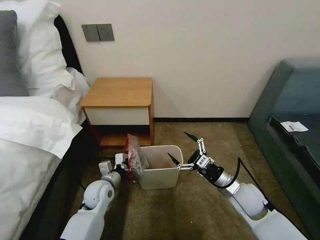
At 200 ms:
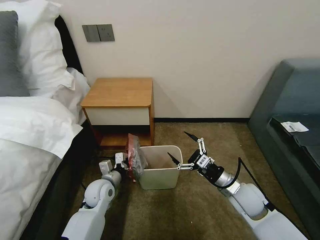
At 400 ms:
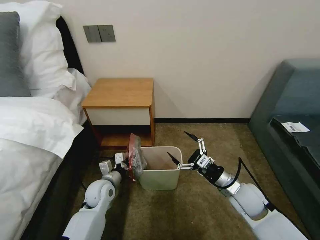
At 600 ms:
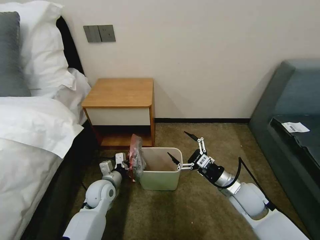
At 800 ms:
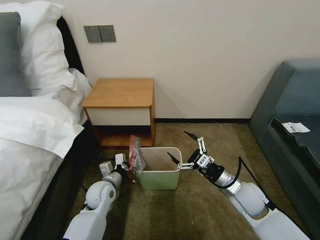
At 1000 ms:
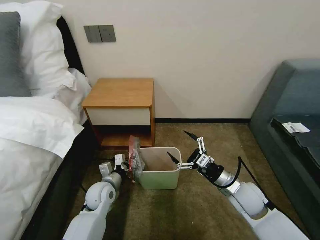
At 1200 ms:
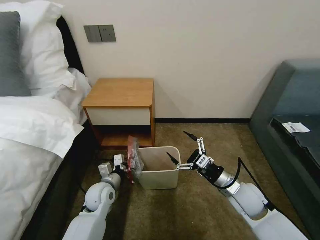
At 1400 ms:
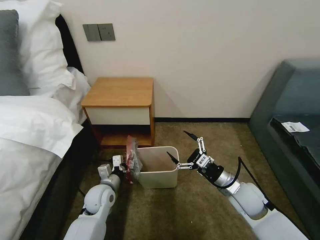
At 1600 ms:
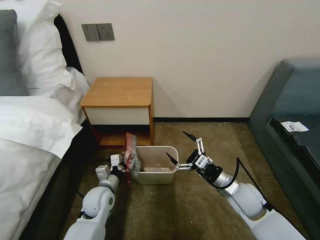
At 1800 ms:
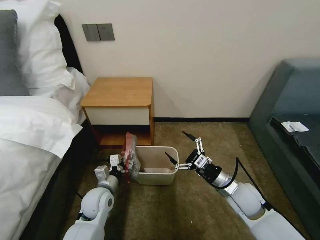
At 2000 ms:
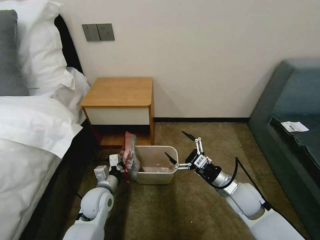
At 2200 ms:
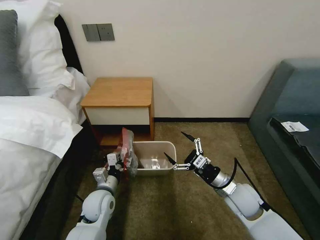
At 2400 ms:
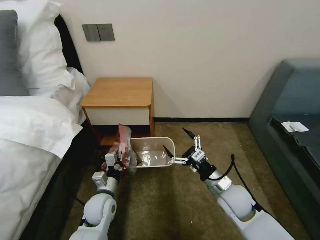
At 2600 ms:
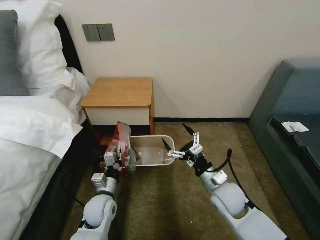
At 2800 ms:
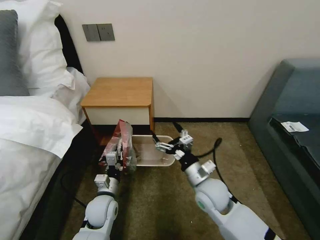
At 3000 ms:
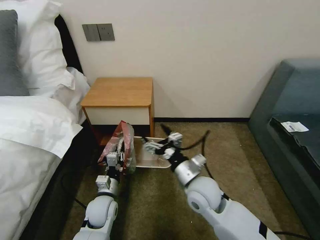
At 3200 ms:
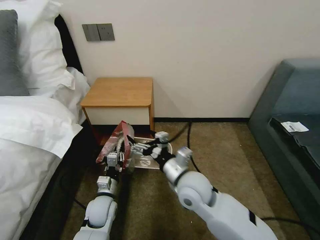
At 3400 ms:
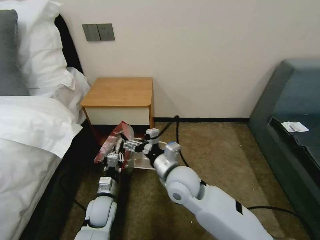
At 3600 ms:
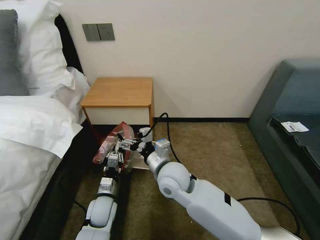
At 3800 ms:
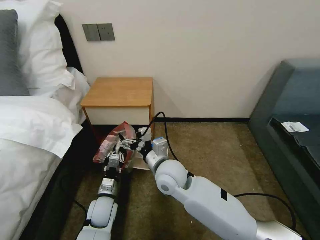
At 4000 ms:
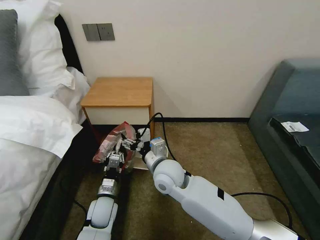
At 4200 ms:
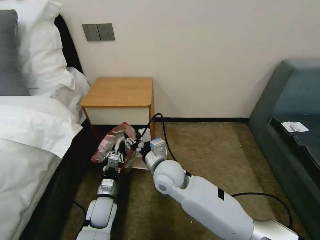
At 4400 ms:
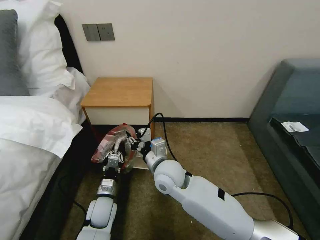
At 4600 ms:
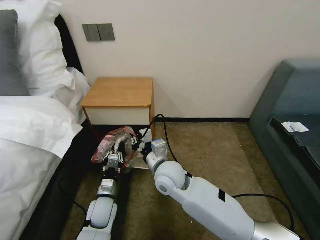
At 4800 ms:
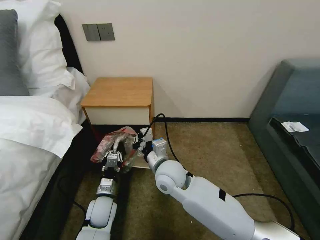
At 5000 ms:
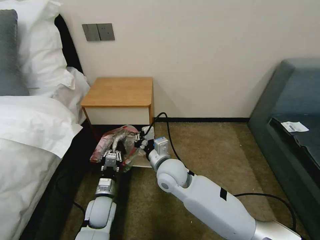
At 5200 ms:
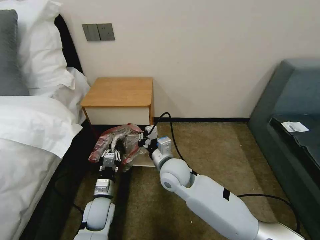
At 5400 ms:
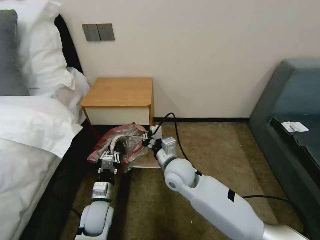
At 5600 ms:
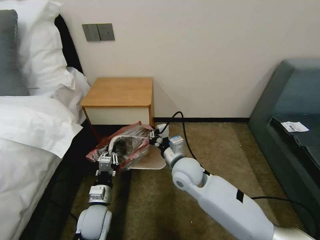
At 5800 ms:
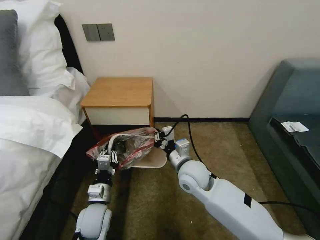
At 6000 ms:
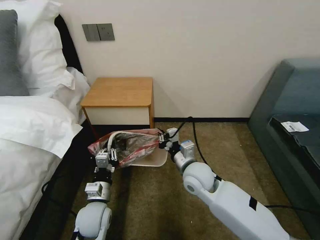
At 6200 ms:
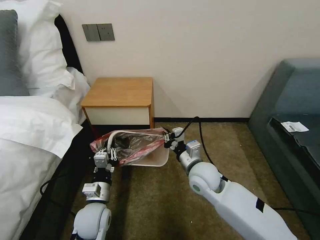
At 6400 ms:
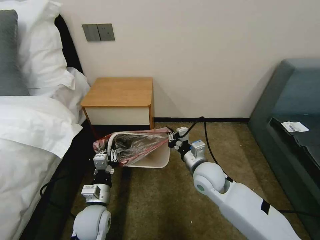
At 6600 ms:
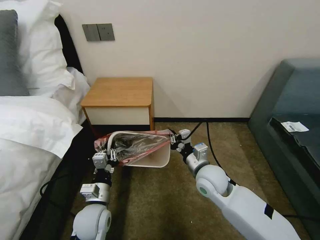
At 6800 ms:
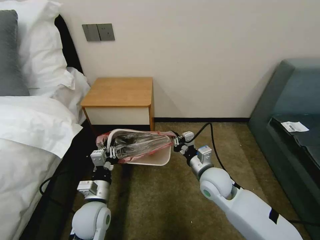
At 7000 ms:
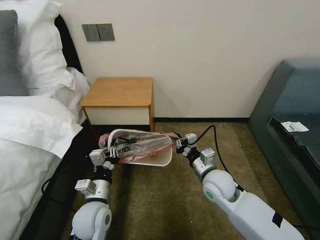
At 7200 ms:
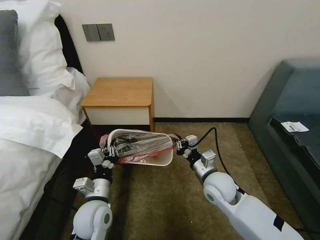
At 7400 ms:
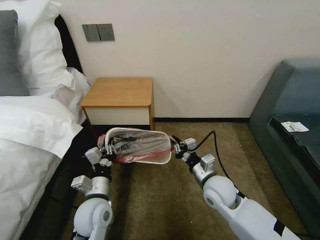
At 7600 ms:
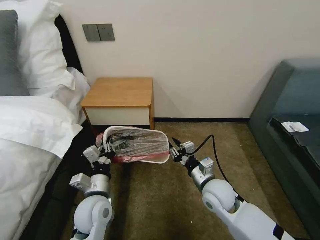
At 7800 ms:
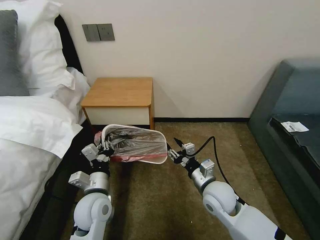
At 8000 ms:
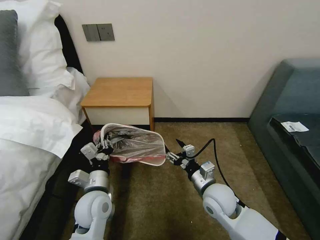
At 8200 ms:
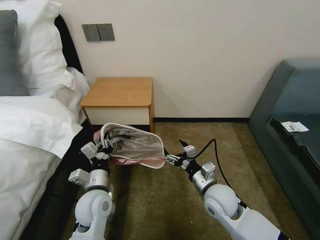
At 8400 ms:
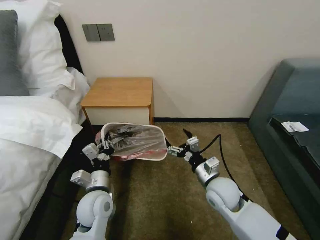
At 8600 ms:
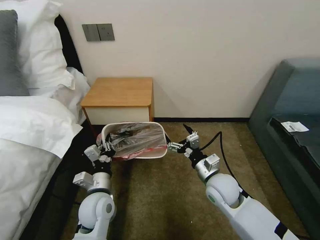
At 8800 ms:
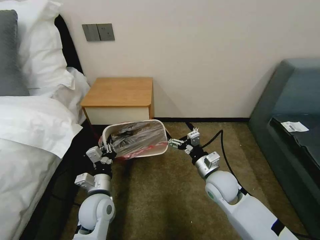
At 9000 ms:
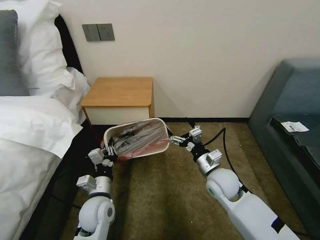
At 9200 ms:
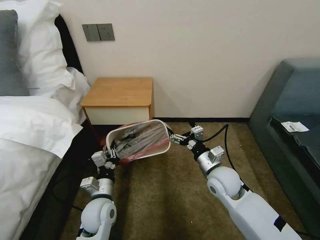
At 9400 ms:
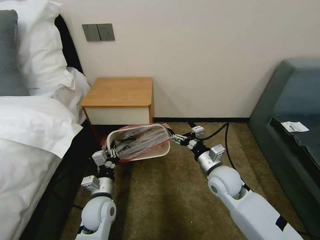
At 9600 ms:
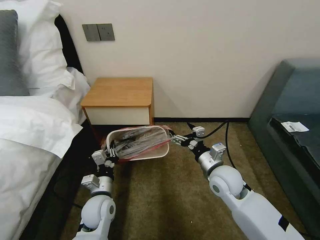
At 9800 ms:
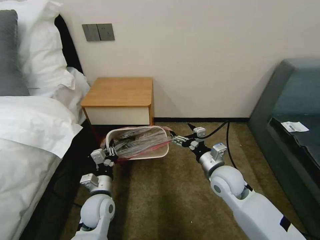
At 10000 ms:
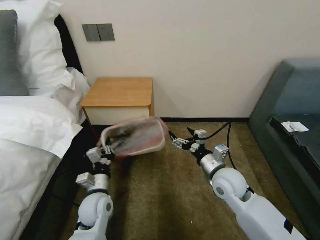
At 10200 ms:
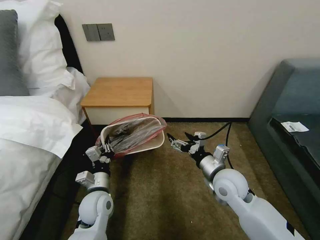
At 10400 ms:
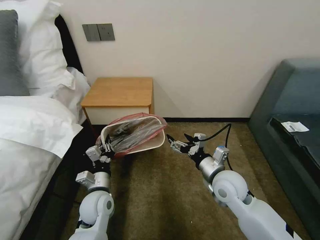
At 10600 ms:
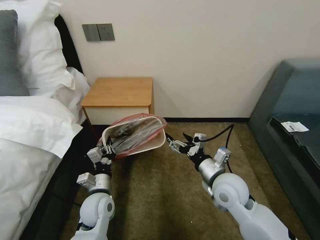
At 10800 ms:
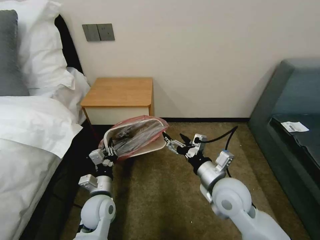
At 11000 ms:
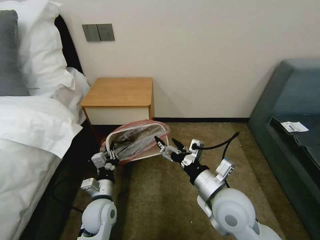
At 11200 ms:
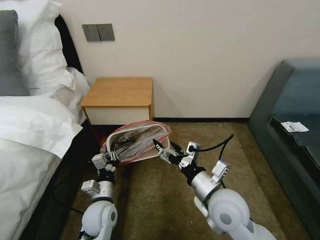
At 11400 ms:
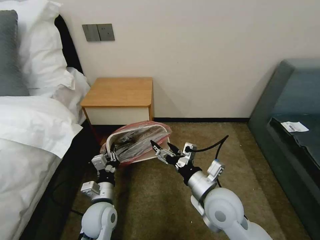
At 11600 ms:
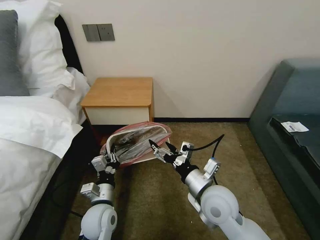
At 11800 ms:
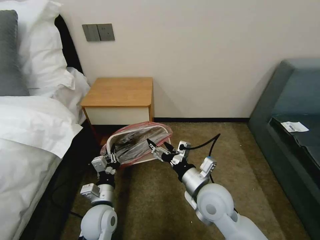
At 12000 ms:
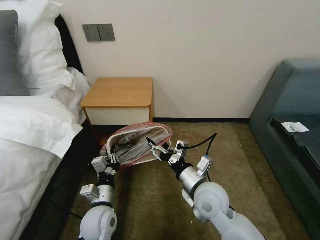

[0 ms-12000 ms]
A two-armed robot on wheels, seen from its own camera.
Task of the whole recording: Pick up the garbage bag from the table and place it over the trash can.
0 ms to 1600 ms: The left gripper closes.
1600 ms to 3000 ms: The right gripper goes roughly 15 cm to the left.
3000 ms to 4400 ms: The right gripper goes some 10 cm to the left, and closes up.
4400 ms to 6000 ms: The left gripper is displaced upward by about 5 cm. The right gripper goes roughly 10 cm to the right, and closes its fingers.
6000 ms to 7600 ms: The right gripper heads to the right, covering about 5 cm. The left gripper is displaced upward by roughly 5 cm.
7600 ms to 9000 ms: The right gripper opens up.
10400 ms to 12000 ms: The right gripper shifts some 5 cm to the left.

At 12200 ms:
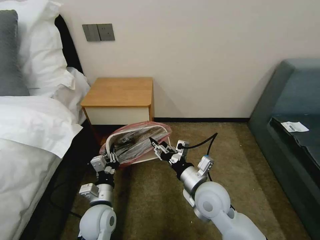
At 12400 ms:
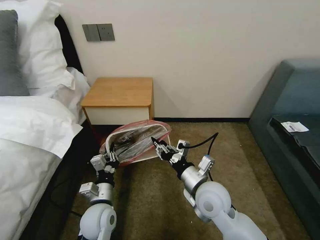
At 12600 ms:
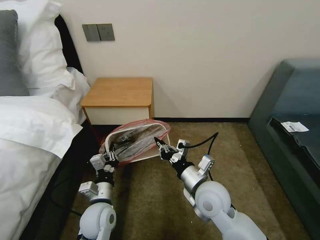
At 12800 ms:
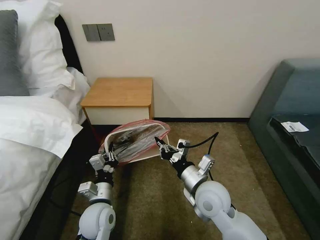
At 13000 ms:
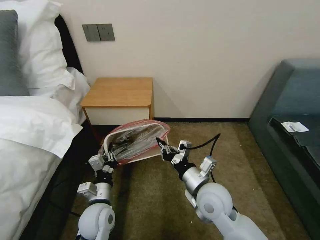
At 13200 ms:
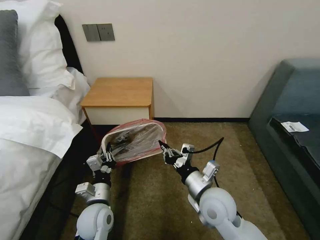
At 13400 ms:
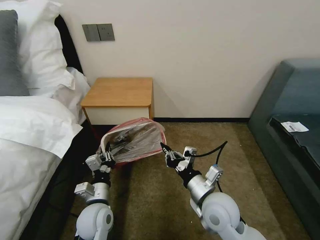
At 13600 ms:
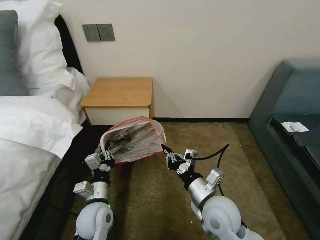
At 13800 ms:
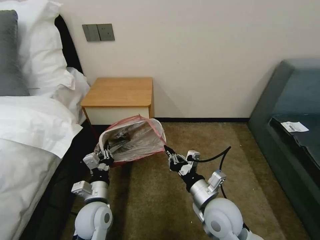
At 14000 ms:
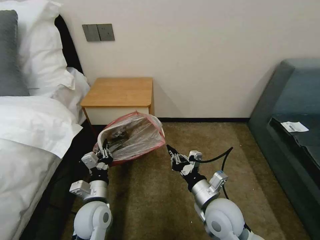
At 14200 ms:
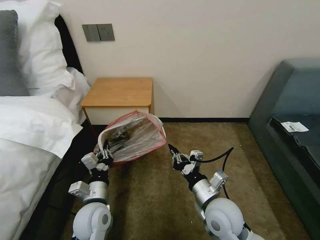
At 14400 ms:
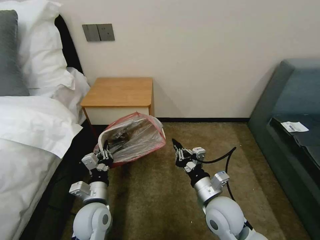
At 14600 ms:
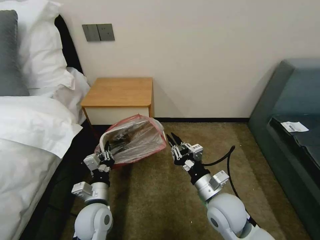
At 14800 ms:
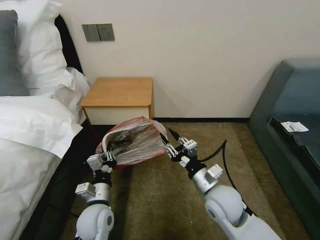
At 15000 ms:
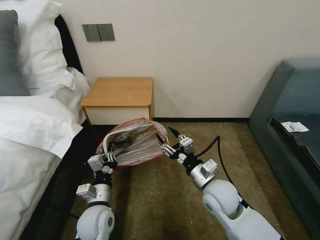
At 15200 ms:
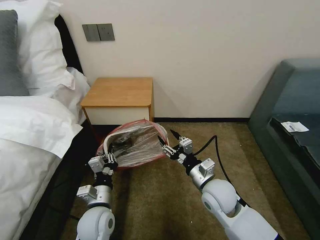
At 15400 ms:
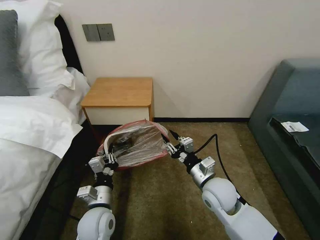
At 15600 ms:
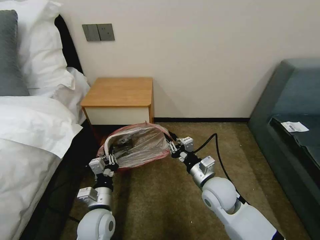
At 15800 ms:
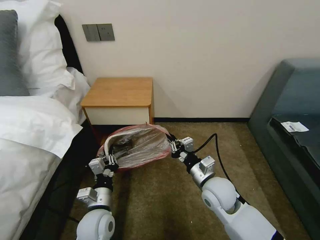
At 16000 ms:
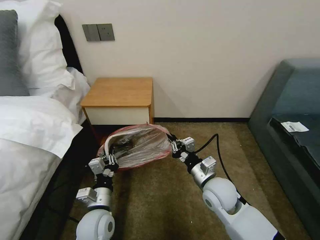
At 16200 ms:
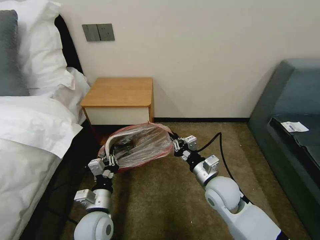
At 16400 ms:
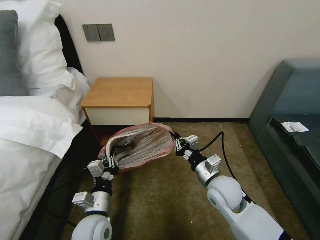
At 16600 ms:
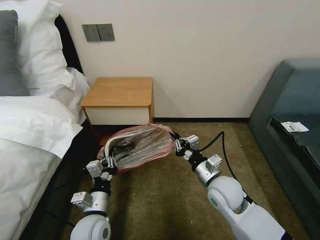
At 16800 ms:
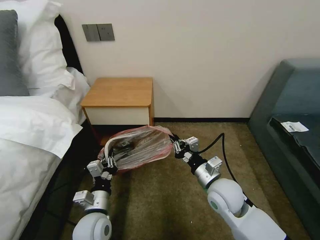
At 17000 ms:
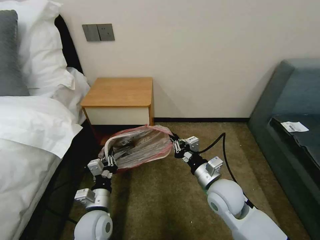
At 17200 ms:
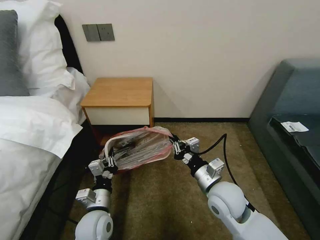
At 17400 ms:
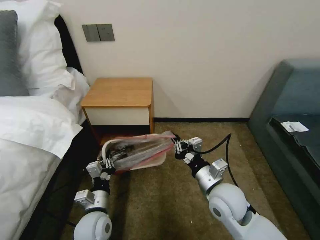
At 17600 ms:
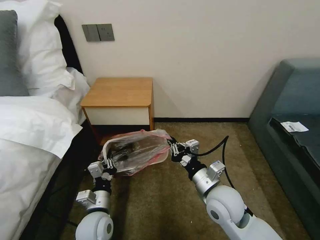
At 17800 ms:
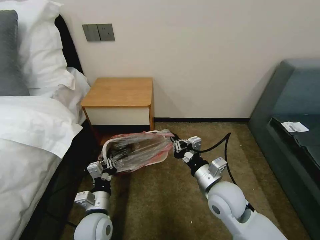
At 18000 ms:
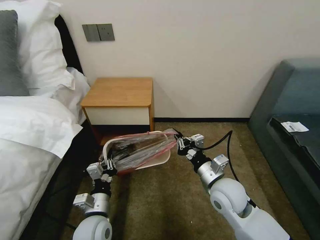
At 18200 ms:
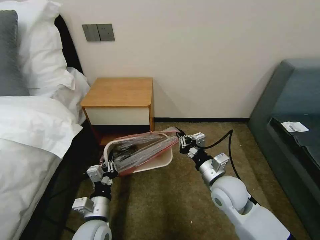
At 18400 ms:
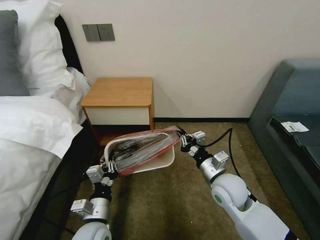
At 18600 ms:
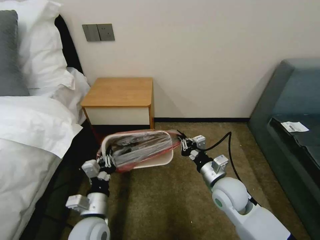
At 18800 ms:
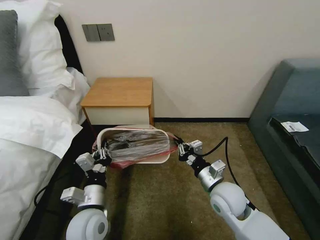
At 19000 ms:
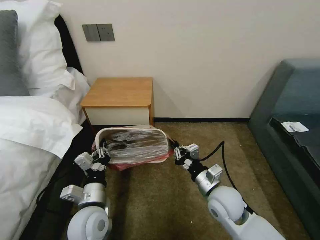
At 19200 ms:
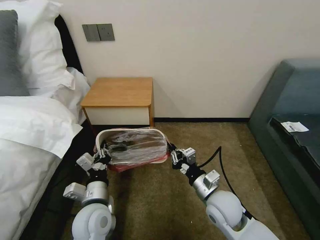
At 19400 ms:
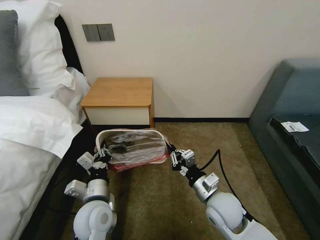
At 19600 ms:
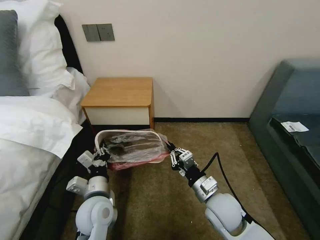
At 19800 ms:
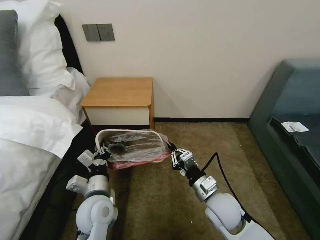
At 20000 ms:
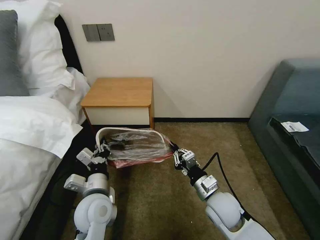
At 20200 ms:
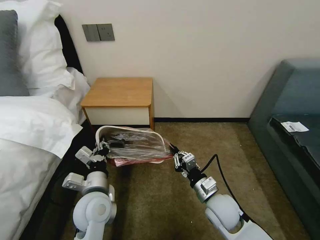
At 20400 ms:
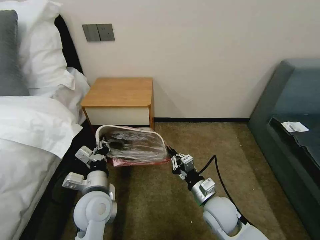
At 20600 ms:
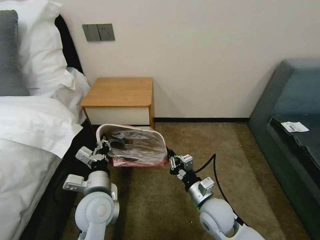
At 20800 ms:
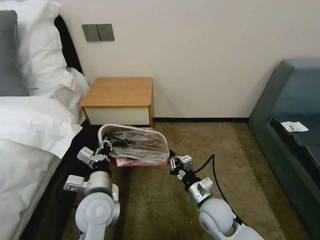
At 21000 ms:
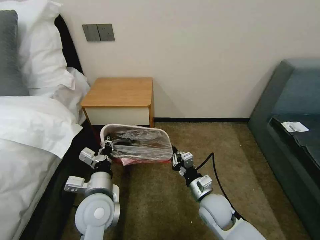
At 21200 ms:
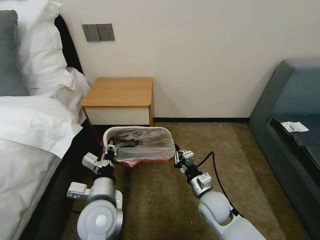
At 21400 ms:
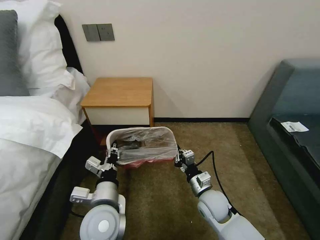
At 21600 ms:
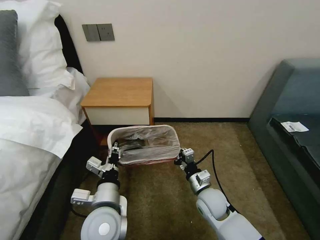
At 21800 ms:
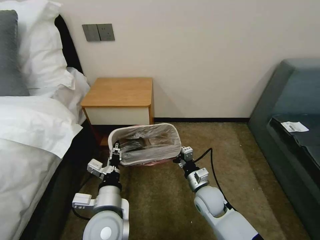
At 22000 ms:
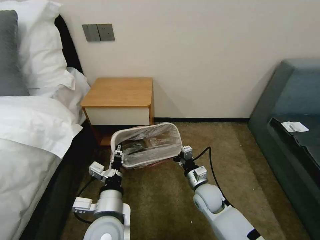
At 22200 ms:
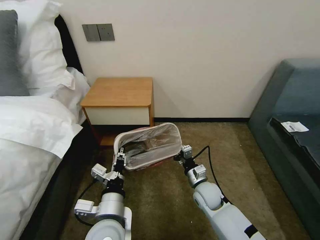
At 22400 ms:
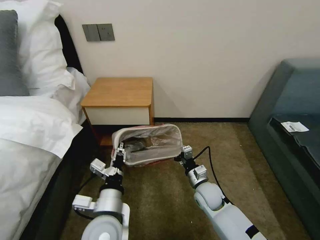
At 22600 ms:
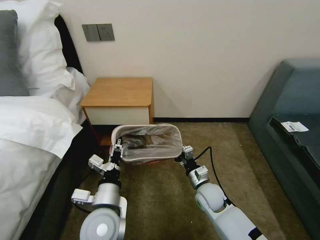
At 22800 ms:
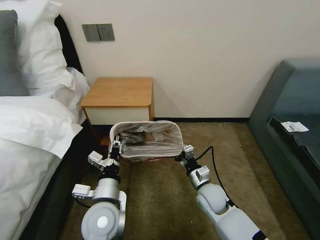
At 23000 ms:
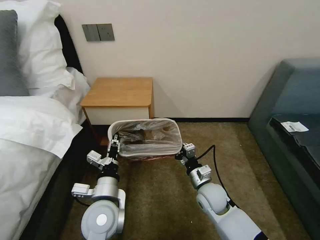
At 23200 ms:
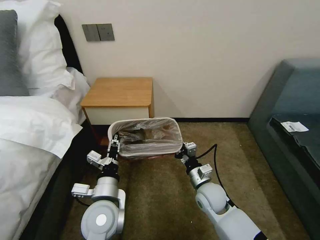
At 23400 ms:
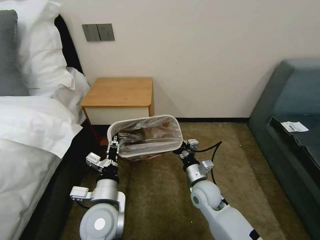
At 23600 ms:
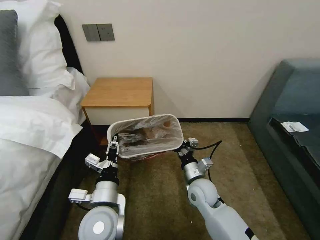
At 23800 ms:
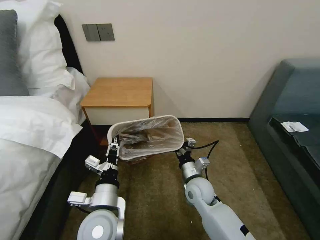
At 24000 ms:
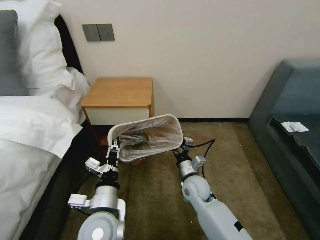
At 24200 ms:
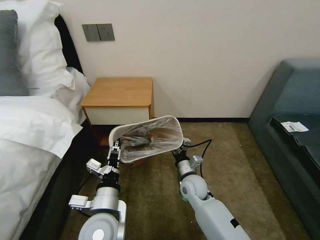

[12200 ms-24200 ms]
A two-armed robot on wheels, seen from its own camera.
Task of the whole recording: Pick up the garbage bag from the table and place it over the trash can.
12200 ms to 13800 ms: The right gripper closes its fingers.
13800 ms to 15200 ms: The right gripper opens its fingers.
15200 ms to 16600 ms: The right gripper closes its fingers.
16600 ms to 18200 ms: The grippers stay close to where they were, moving slightly.
18200 ms to 19800 ms: The left gripper moves upward, about 5 cm.
19800 ms to 21200 ms: The right gripper goes approximately 5 cm downward.
22600 ms to 24200 ms: The right gripper travels to the left by approximately 5 cm.
